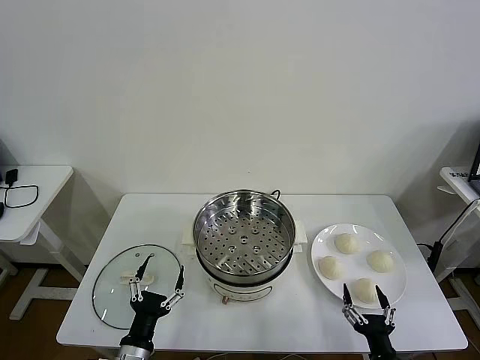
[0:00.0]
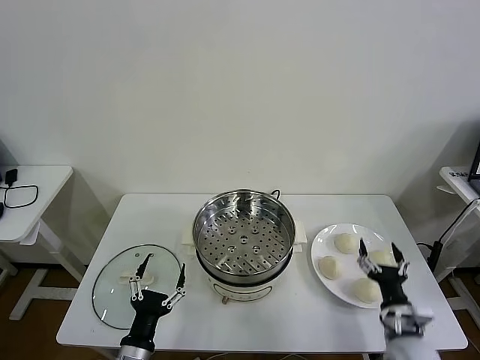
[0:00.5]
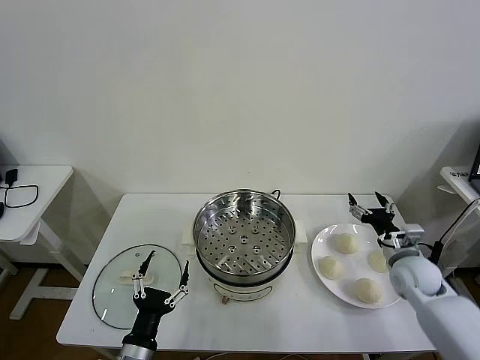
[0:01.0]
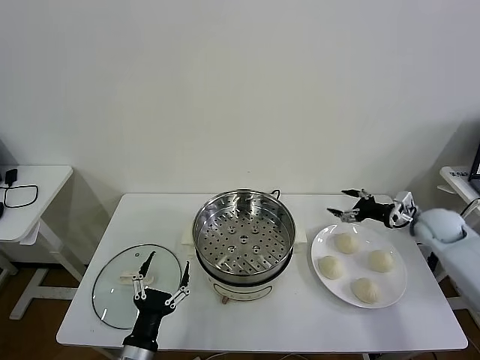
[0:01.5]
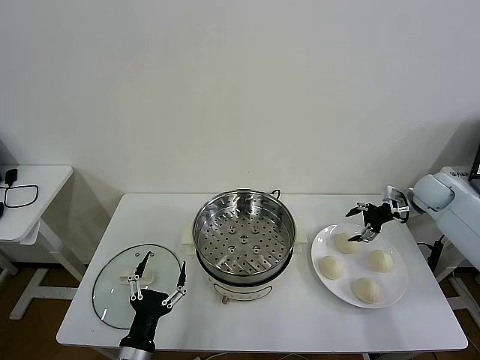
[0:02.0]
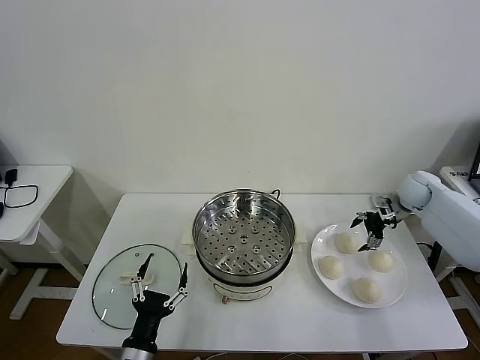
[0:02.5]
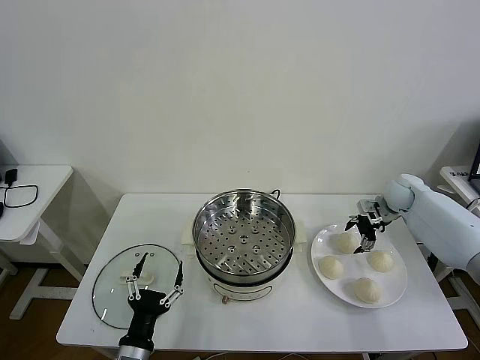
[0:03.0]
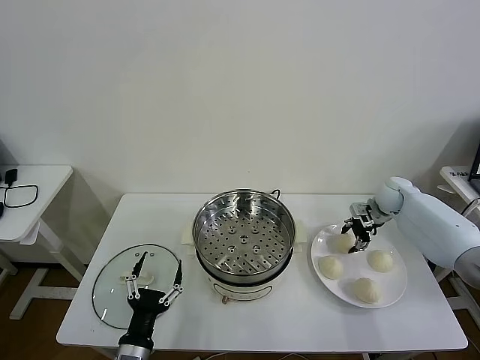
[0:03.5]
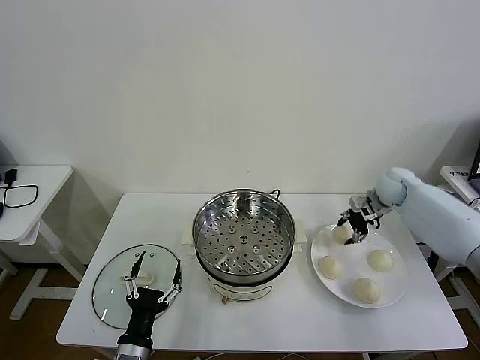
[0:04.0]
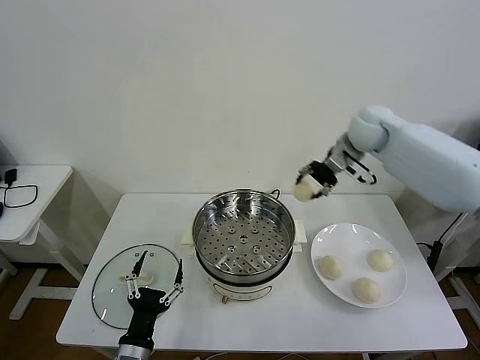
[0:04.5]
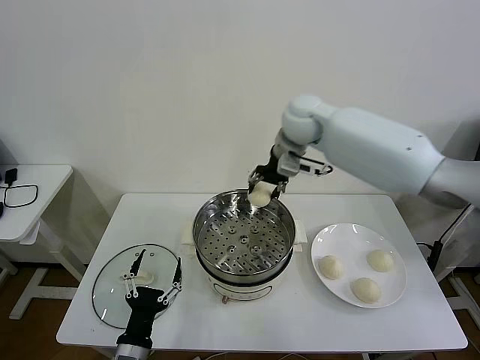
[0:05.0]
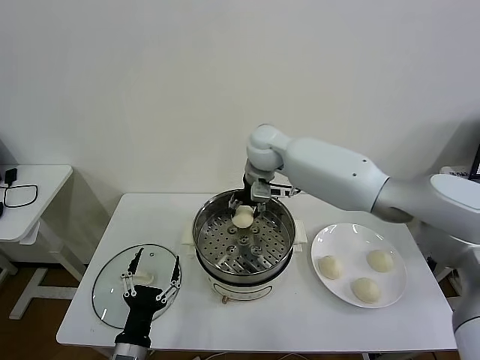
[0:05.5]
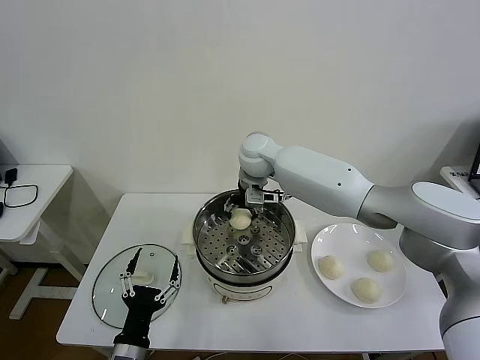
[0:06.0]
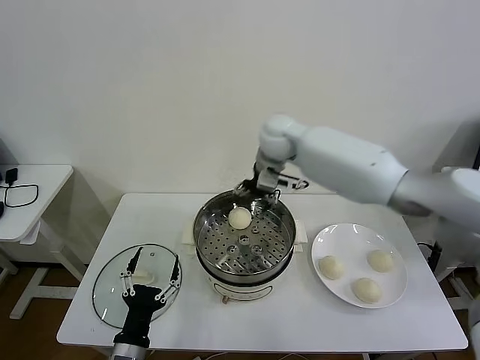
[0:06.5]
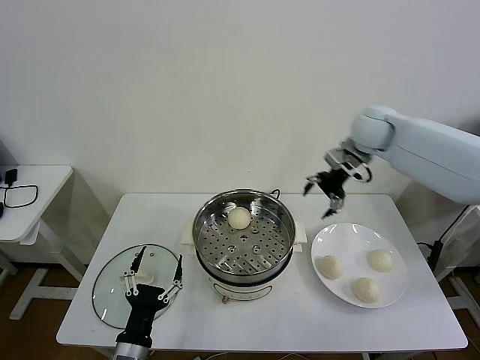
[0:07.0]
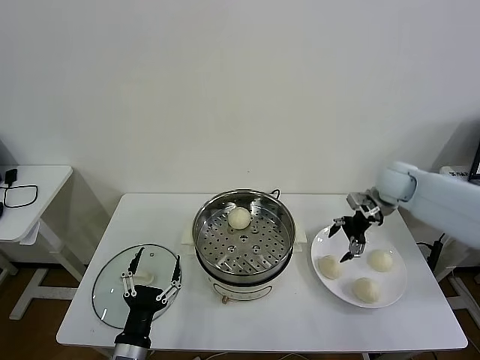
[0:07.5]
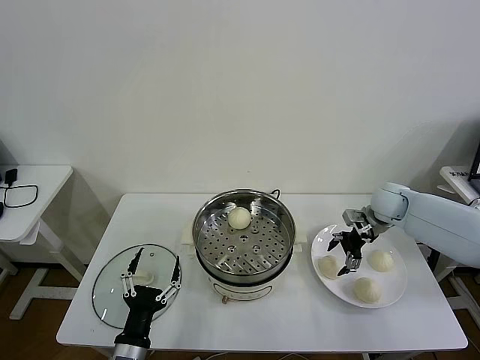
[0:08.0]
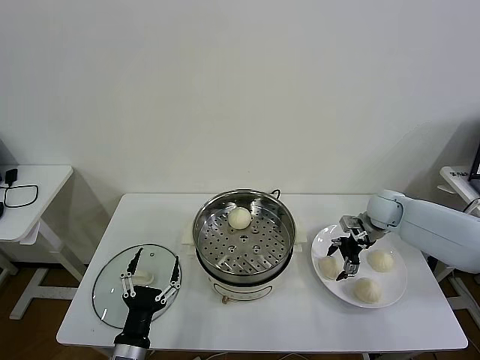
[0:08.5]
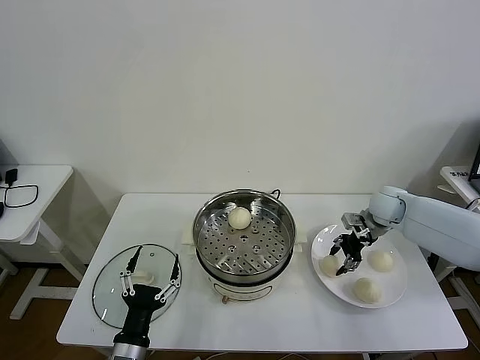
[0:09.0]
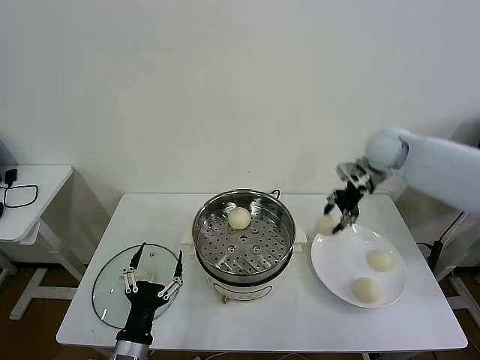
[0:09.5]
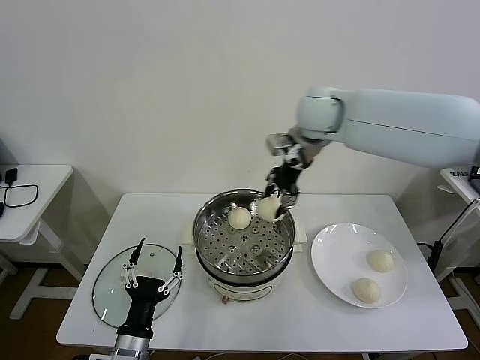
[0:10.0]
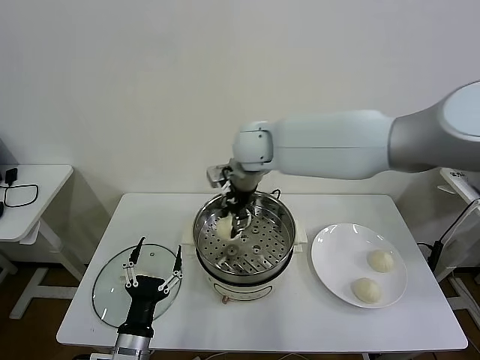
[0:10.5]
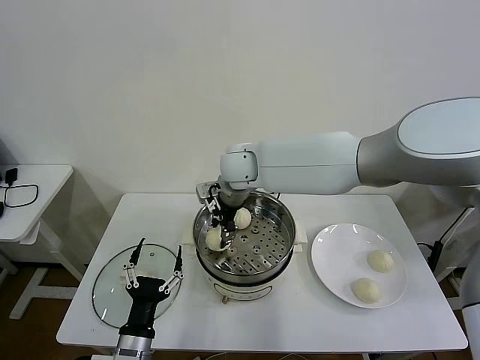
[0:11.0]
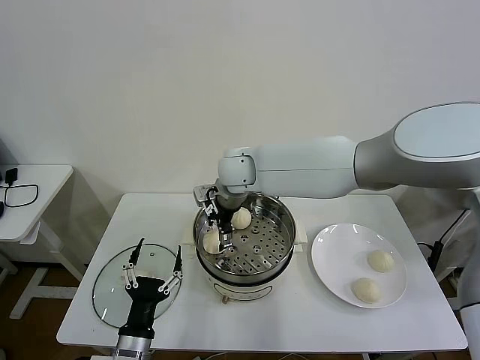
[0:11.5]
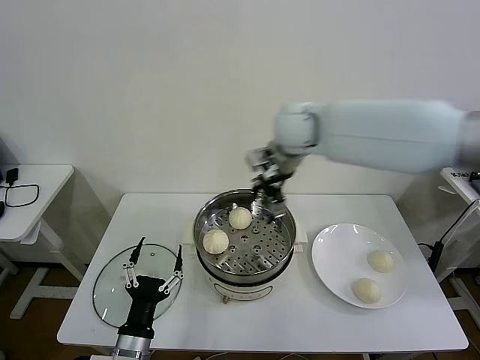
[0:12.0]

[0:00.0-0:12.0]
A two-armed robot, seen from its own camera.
Task of the whole recording: take steamed baozi put them in steamer then cover it.
Step, 0:00.0 to 0:03.5: Grasp the baozi in the plate with right gripper.
Step, 0:04.0 to 0:06.5: Place the baozi on the steamer with right gripper.
Step, 0:07.0 to 0:09.0: Grasp the baozi in the plate with right gripper.
Step, 0:09.5 to 0:11.5: Place the baozi on the steamer with right gripper.
0:02.0 to 0:04.0: The right gripper travels to the left by roughly 10 cm, and closes its fingers.
0:04.0 to 0:06.0: The right gripper travels to the left by some 35 cm.
0:06.0 to 0:08.0: The right gripper travels to the right by some 35 cm, and opens.
0:08.0 to 0:10.0: The right gripper moves upward and to the left, approximately 35 cm, and closes up.
0:10.0 to 0:12.0: The right gripper reaches some 15 cm to the left, then returns, and opens up.

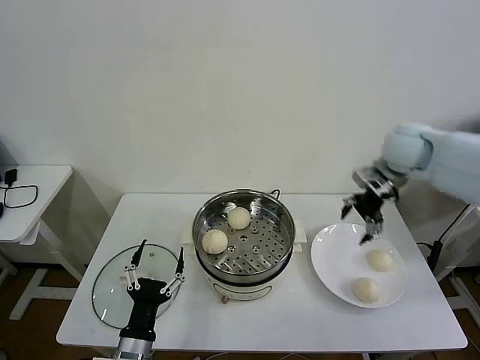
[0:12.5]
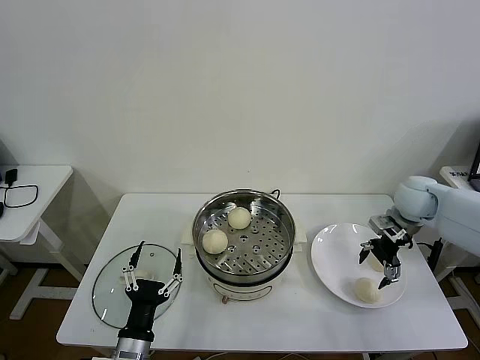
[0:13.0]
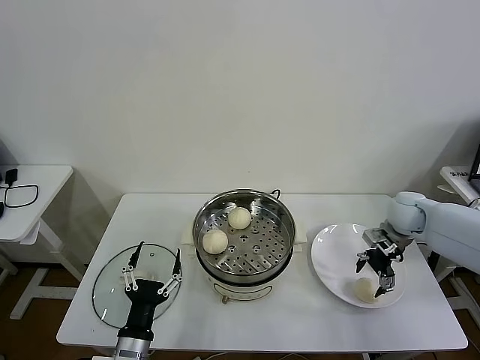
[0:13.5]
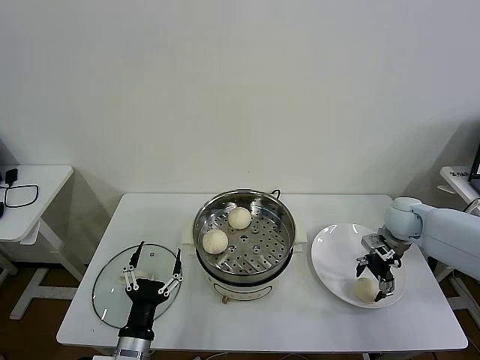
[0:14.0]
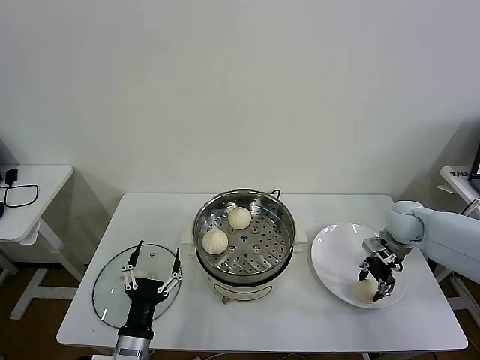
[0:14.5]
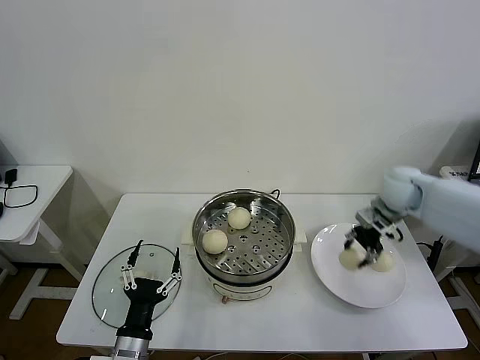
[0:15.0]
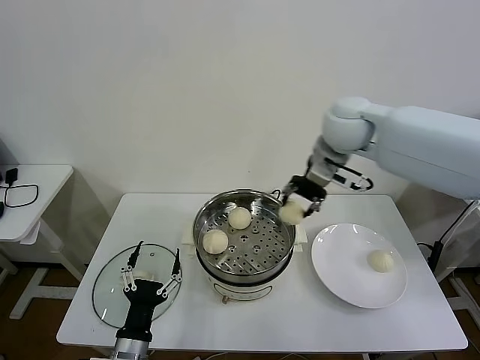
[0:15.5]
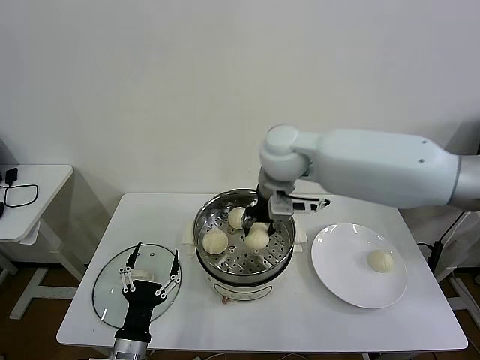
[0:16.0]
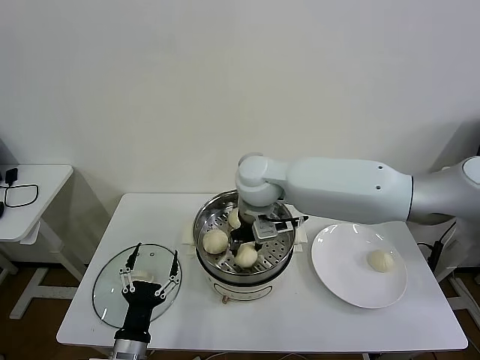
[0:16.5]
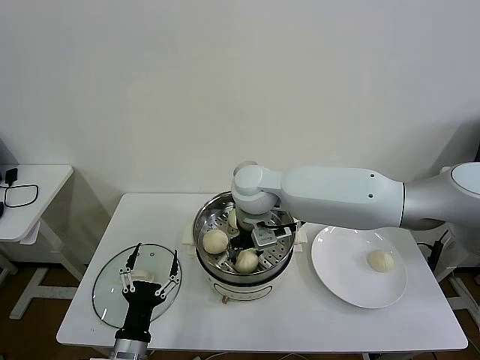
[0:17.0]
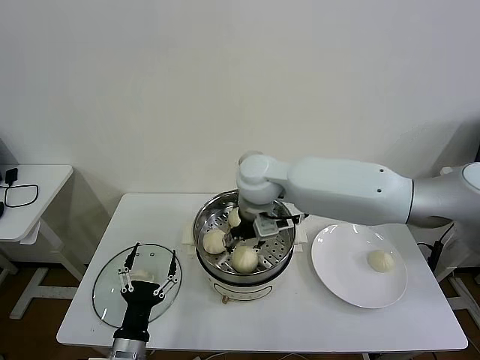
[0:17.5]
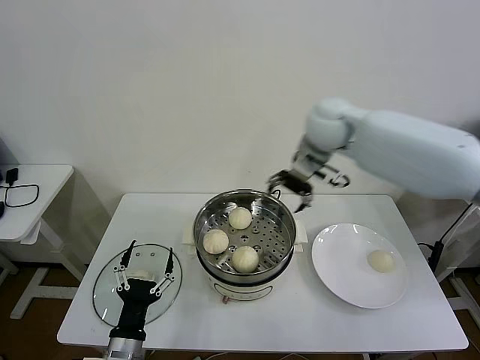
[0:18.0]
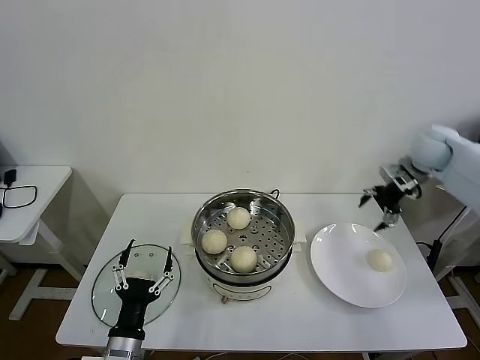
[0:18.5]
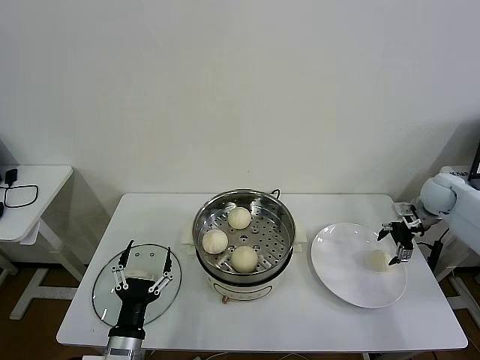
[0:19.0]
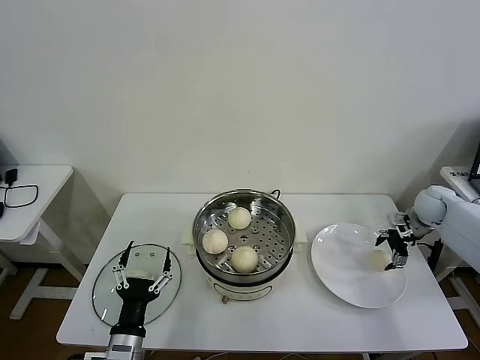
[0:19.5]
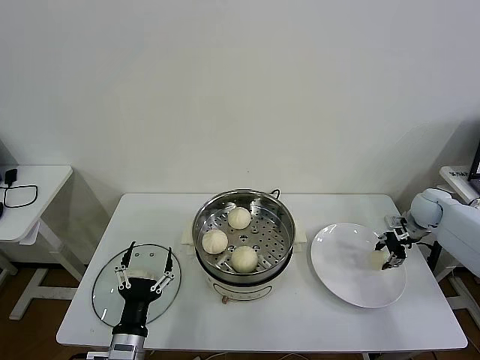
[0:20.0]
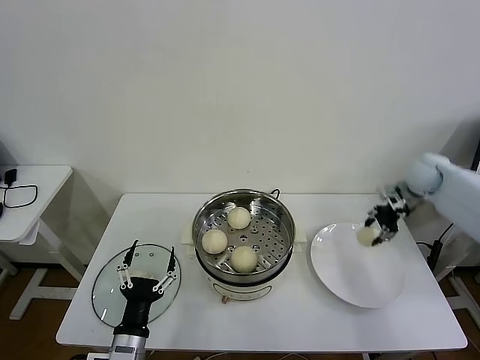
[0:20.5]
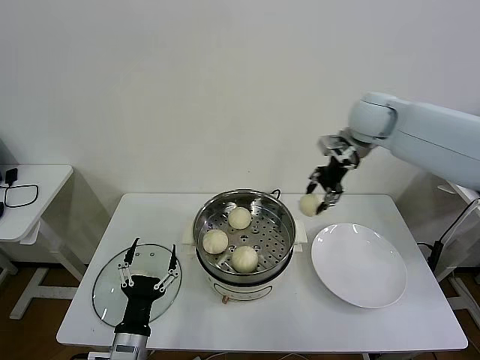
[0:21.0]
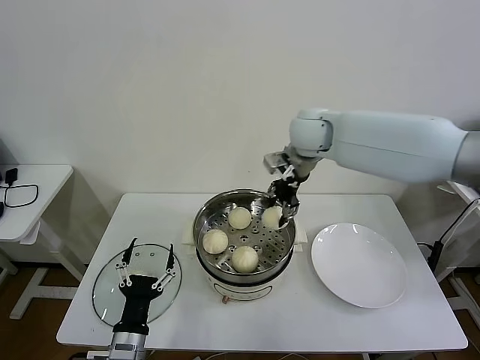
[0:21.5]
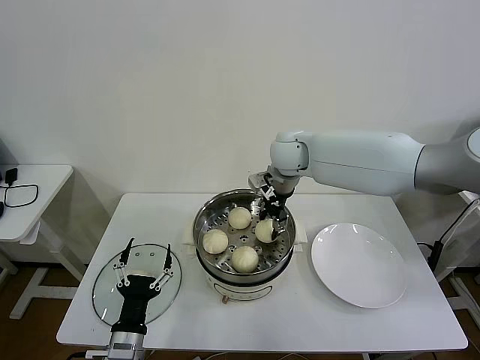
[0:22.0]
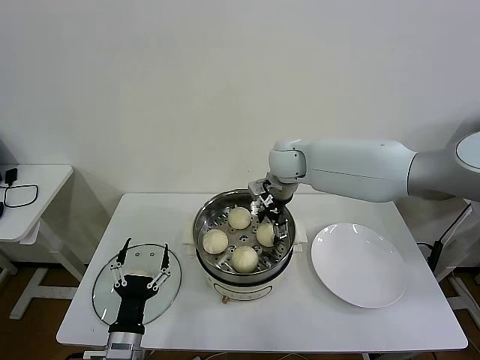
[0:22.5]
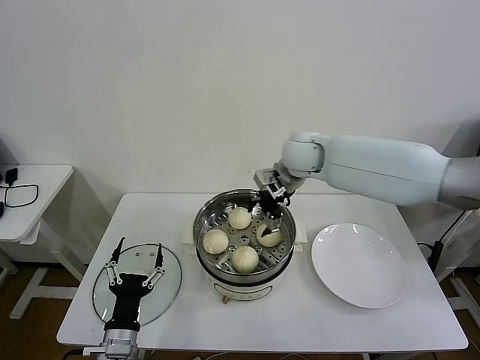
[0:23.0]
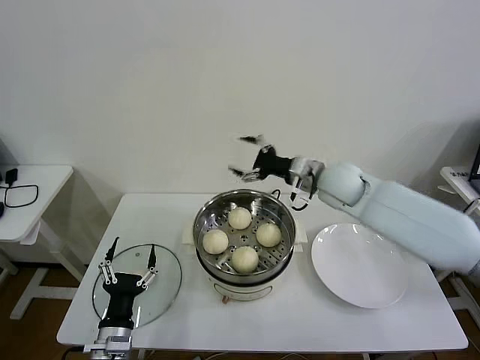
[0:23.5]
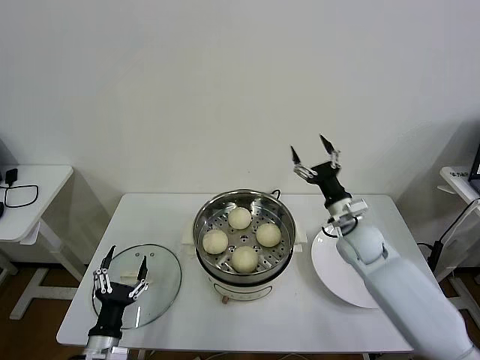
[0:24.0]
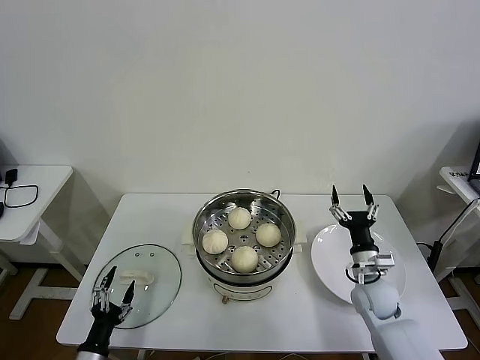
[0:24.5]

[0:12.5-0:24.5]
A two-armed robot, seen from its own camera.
Task of the whole recording: take steamed baozi put them in steamer then cover it.
Step, 0:12.5 to 0:14.5: Grasp the baozi in the plate with right gripper.
Step, 0:15.0 to 0:17.5: Place the baozi on the steamer with right gripper.
Step, 0:18.0 to 0:20.0: Grasp the baozi in the plate with right gripper.
Step, 0:20.5 to 0:23.0: Place the baozi on the steamer with right gripper.
0:12.5 to 0:14.5: The right gripper moves downward, roughly 20 cm, and closes up.
0:14.5 to 0:16.5: The right gripper heads to the left and upward, covering about 40 cm.
0:16.5 to 0:18.5: The right gripper heads to the right, covering some 40 cm, and opens.
0:18.5 to 0:20.5: The right gripper is displaced downward by some 10 cm, and closes its fingers.
0:20.5 to 0:22.5: The right gripper goes roughly 35 cm to the left, and opens its fingers.
0:22.5 to 0:24.5: The right gripper moves downward, to the right and backward, some 40 cm. The left gripper moves to the left and downward, roughly 15 cm.

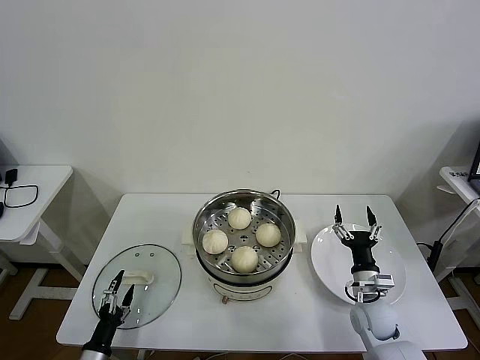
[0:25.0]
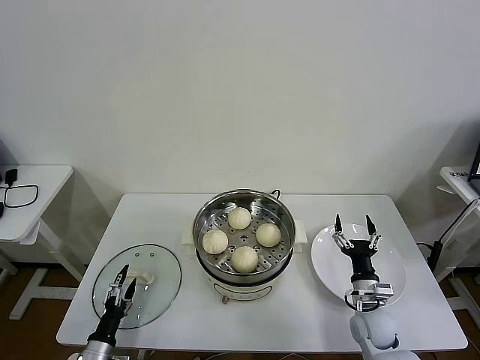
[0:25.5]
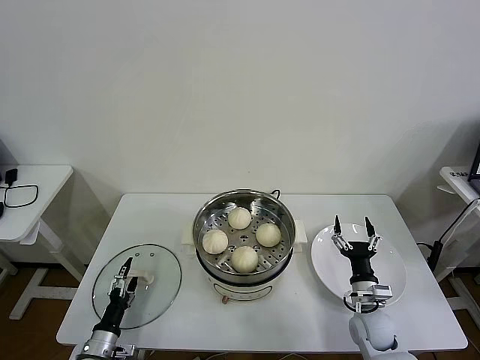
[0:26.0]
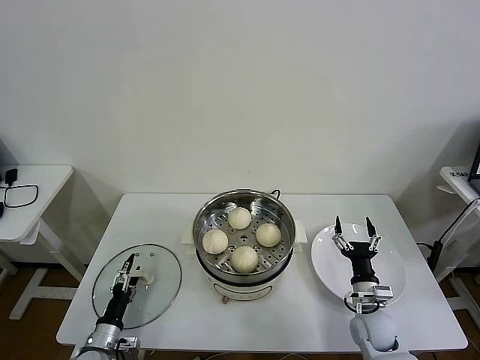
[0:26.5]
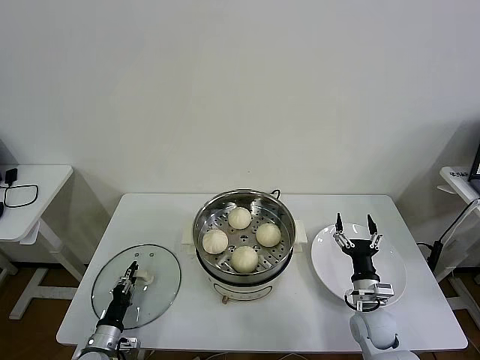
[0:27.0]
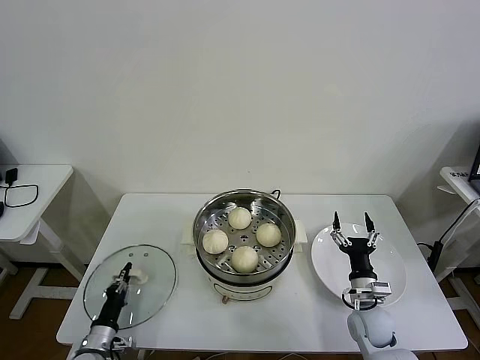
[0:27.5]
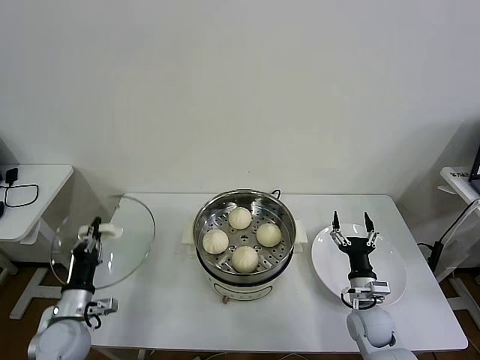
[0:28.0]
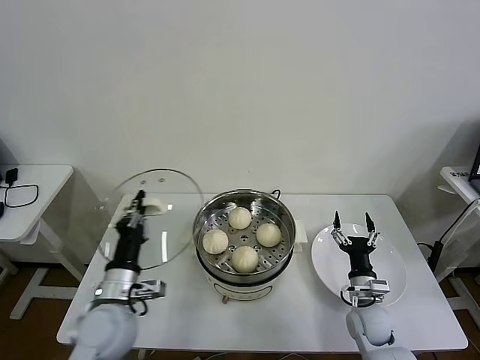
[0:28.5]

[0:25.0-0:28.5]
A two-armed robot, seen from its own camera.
Task of the whole recording: take steamed baozi put them in steamer then cover it.
Step, 0:25.0 to 0:27.5: Grasp the pot lid with left gripper.
0:25.0 to 0:27.0: The left gripper moves forward, approximately 5 cm, and closes up.
0:27.0 to 0:28.5: The left gripper is displaced upward and to the right by some 25 cm.
